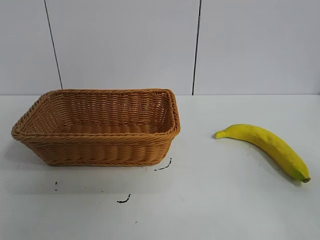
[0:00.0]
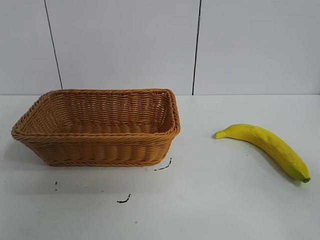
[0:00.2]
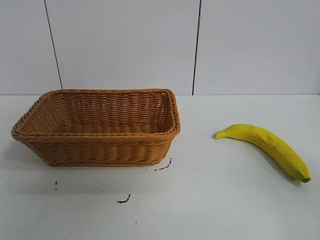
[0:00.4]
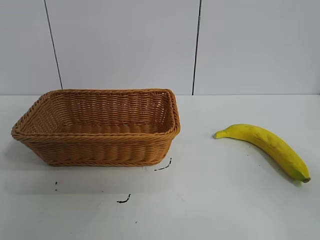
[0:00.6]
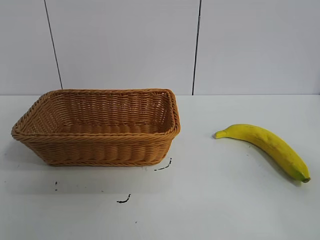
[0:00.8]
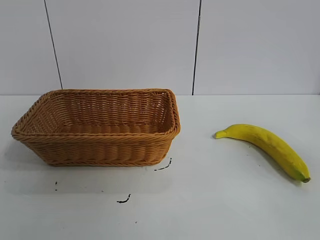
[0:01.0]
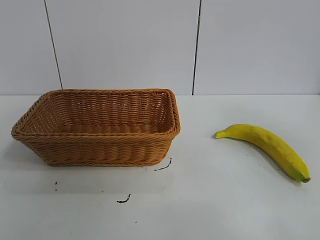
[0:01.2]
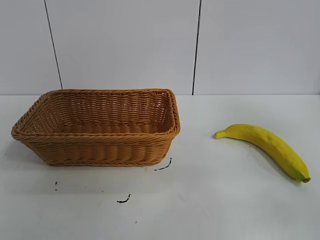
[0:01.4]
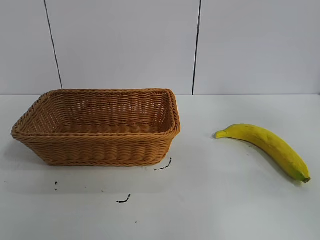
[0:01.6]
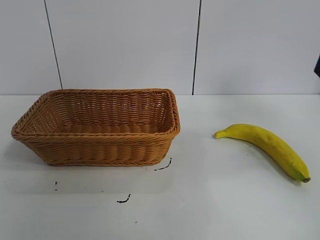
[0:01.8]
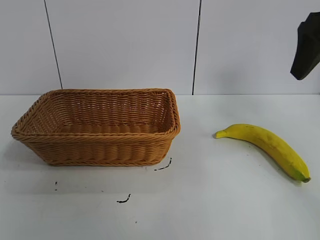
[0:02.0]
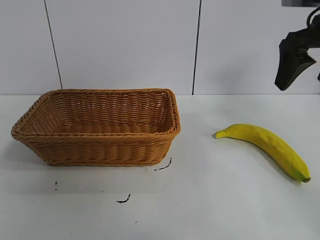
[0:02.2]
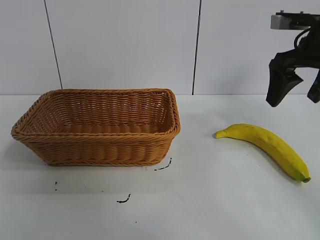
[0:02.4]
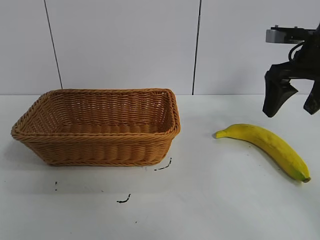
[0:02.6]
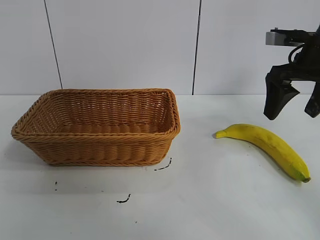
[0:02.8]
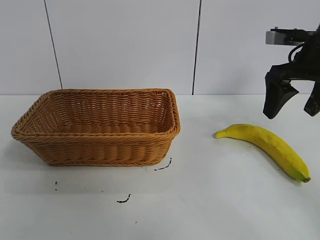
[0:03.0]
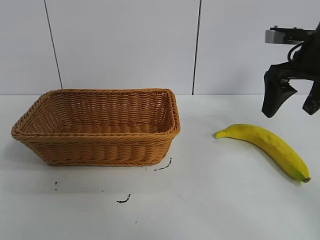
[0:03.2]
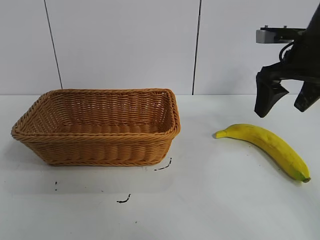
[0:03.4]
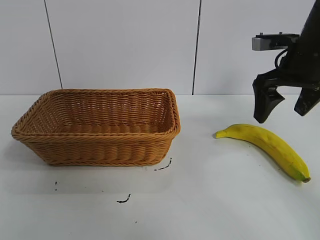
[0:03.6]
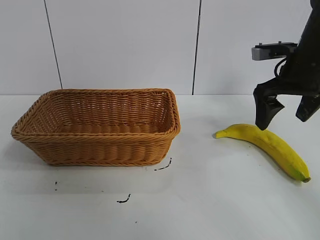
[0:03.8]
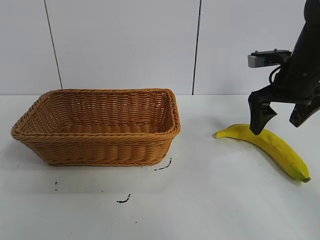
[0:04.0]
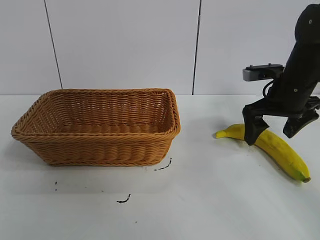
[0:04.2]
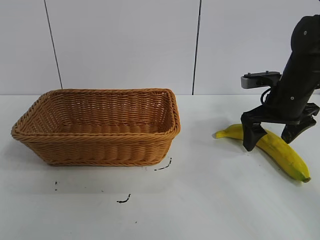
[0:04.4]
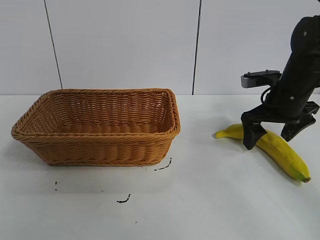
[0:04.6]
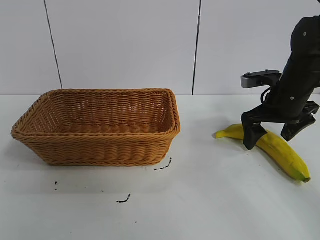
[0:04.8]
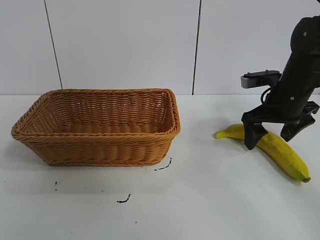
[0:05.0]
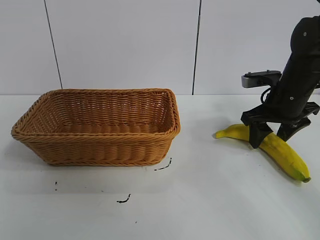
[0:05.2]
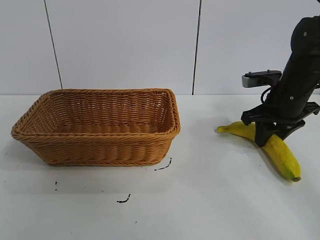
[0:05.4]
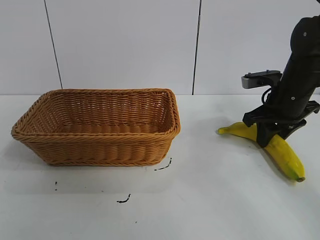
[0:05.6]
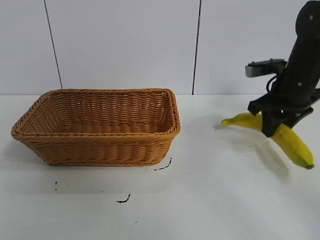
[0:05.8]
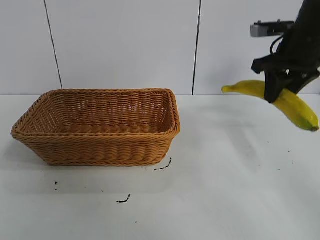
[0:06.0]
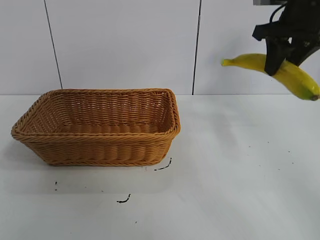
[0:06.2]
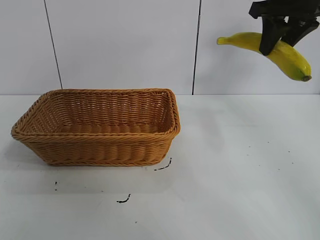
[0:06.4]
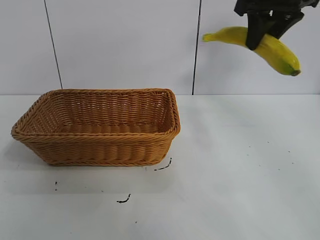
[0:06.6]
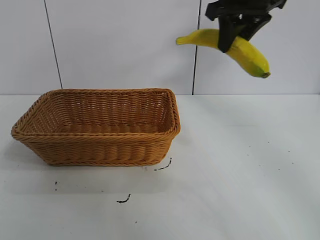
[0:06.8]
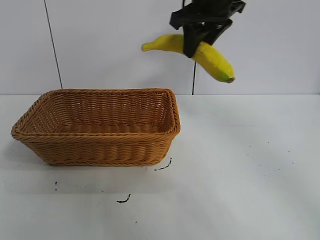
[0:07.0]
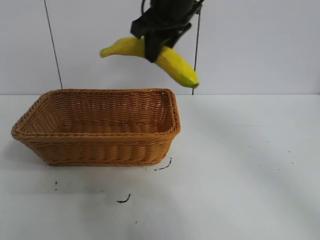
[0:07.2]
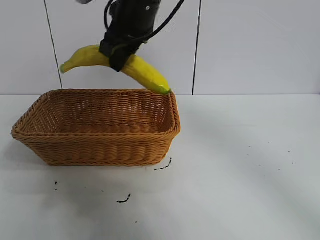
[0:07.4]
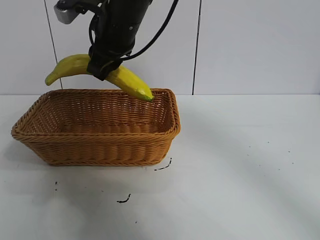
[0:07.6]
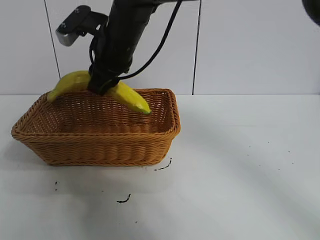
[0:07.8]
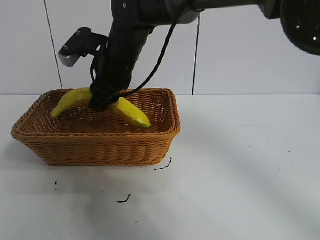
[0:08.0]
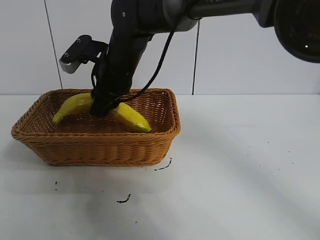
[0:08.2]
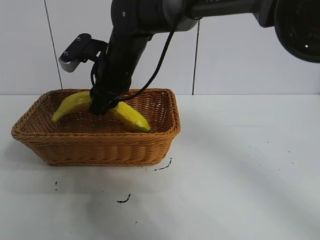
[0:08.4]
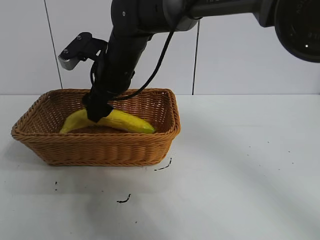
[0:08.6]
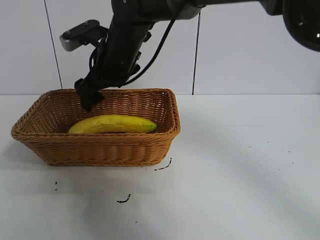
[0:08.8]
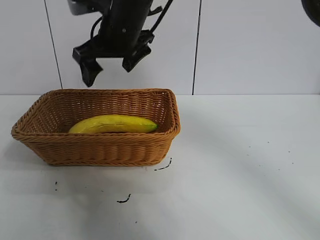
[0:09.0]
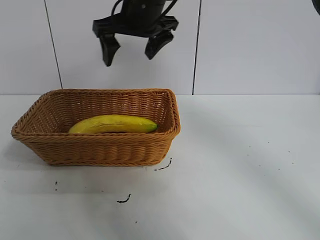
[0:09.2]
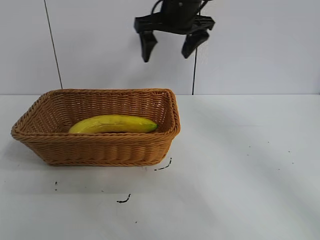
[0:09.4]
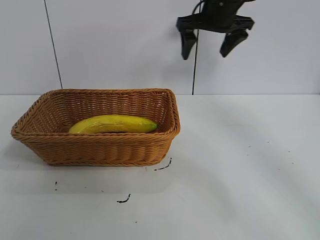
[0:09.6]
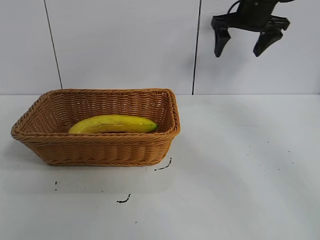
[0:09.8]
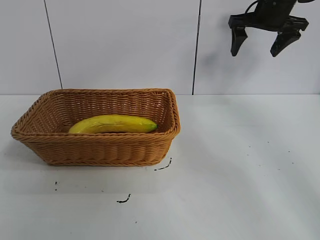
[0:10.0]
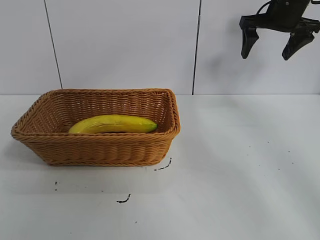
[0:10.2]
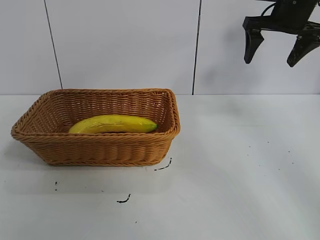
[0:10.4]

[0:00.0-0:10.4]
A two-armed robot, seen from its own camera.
Task of the whole recording: pick up the banana and put it into the basket.
Step, 0:00.8 to 0:05.4: Grasp the banana with right gripper.
Step, 0:05.6 to 0:08.8: Place the banana in the basket with right gripper.

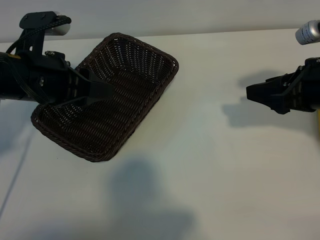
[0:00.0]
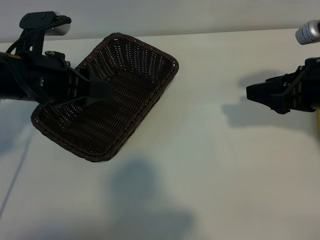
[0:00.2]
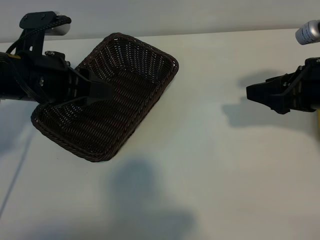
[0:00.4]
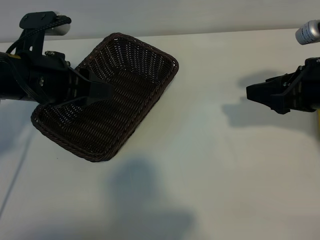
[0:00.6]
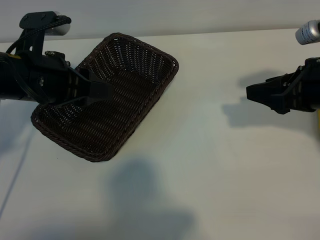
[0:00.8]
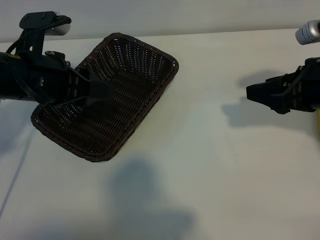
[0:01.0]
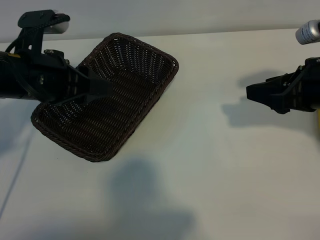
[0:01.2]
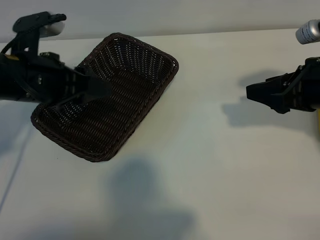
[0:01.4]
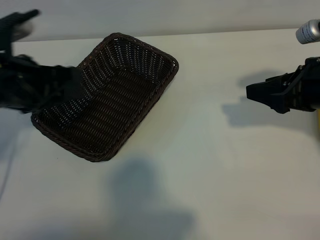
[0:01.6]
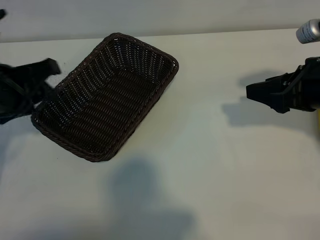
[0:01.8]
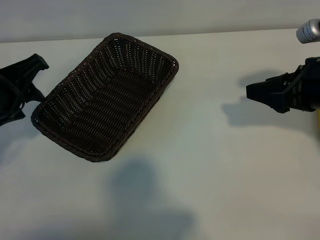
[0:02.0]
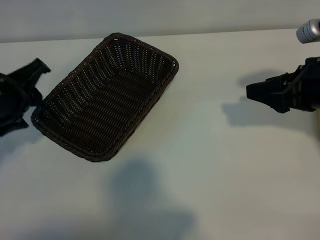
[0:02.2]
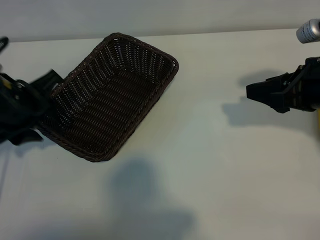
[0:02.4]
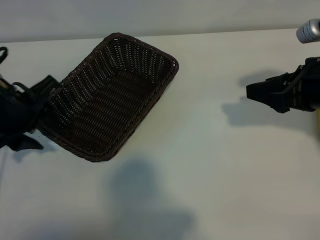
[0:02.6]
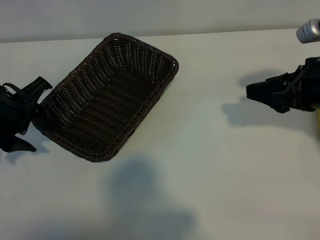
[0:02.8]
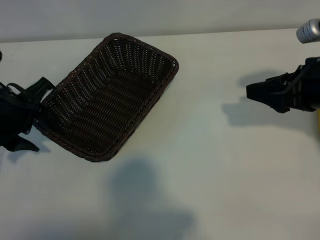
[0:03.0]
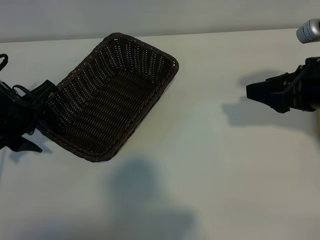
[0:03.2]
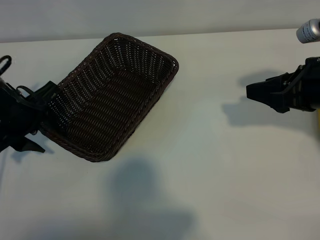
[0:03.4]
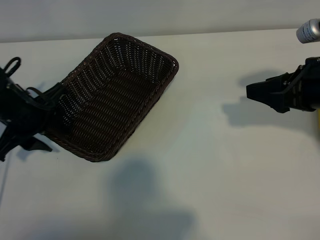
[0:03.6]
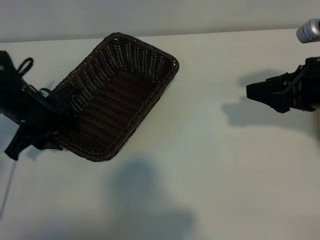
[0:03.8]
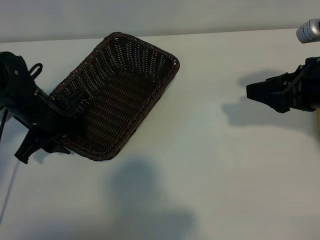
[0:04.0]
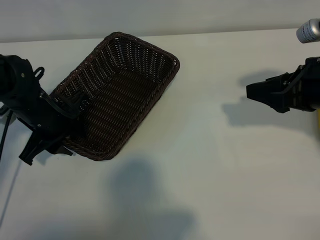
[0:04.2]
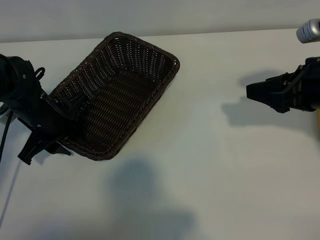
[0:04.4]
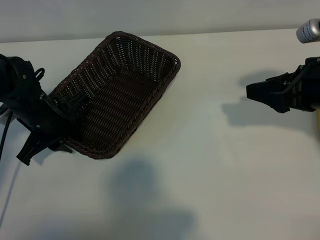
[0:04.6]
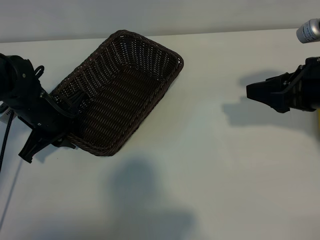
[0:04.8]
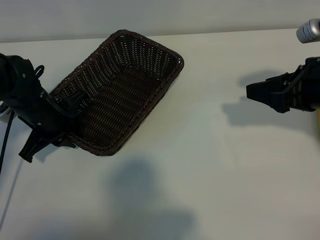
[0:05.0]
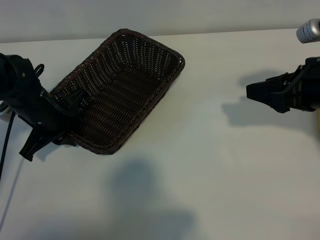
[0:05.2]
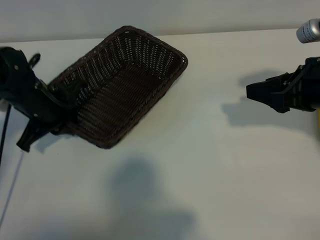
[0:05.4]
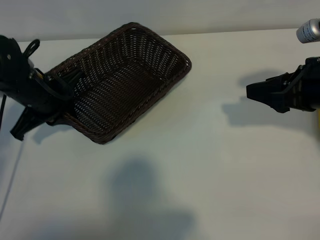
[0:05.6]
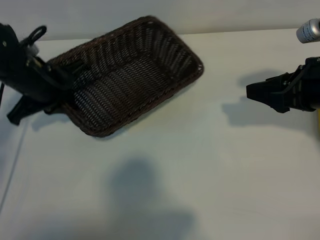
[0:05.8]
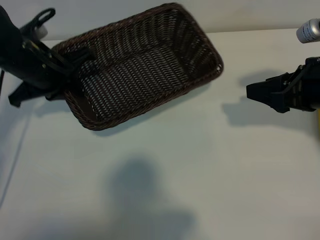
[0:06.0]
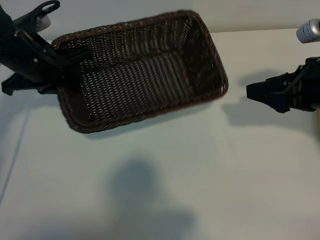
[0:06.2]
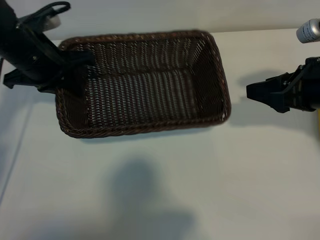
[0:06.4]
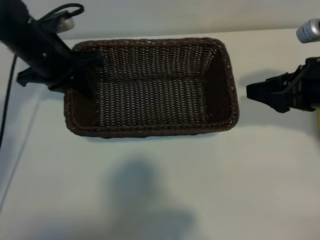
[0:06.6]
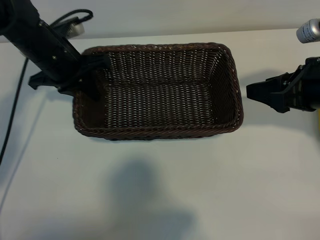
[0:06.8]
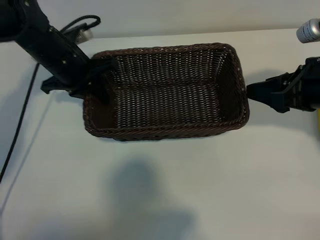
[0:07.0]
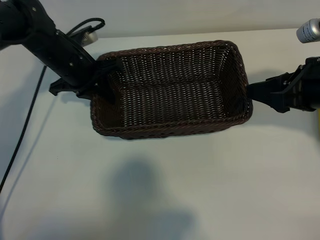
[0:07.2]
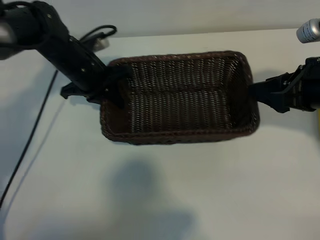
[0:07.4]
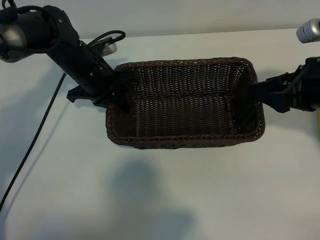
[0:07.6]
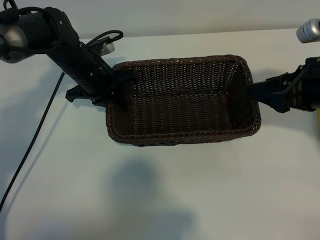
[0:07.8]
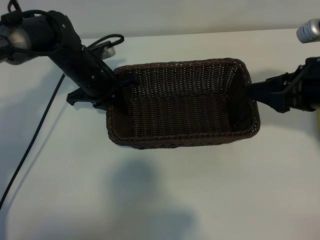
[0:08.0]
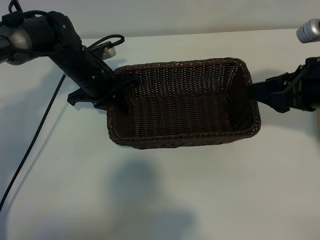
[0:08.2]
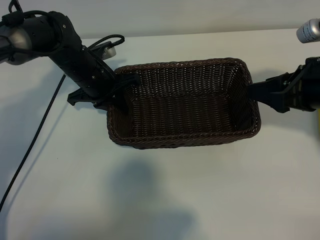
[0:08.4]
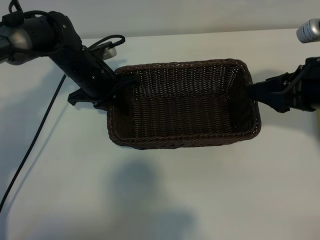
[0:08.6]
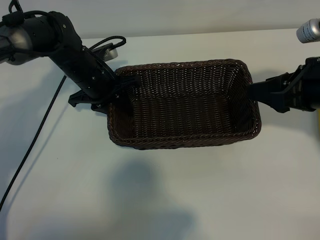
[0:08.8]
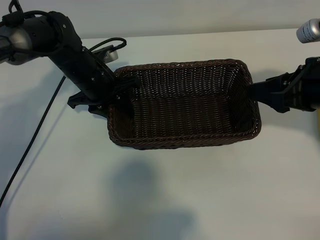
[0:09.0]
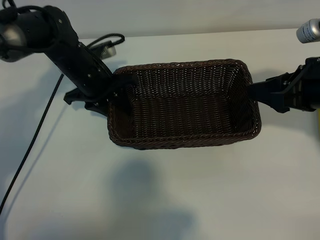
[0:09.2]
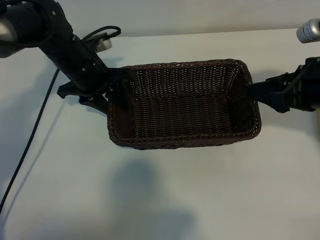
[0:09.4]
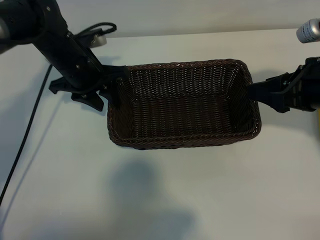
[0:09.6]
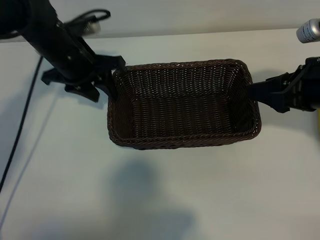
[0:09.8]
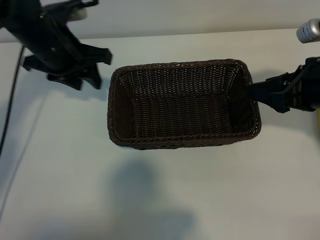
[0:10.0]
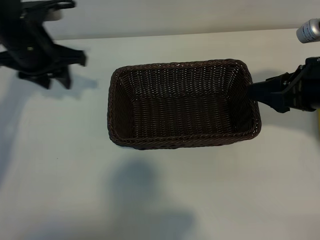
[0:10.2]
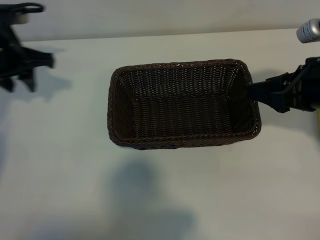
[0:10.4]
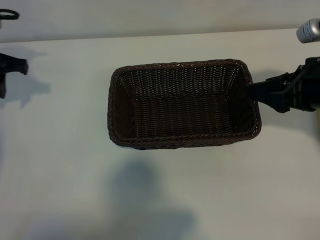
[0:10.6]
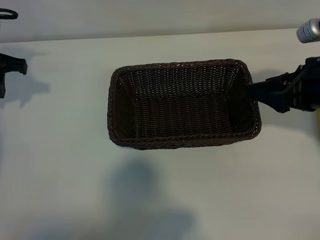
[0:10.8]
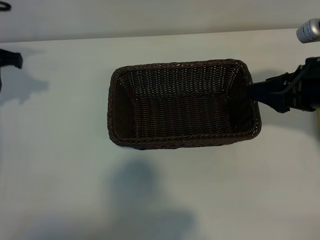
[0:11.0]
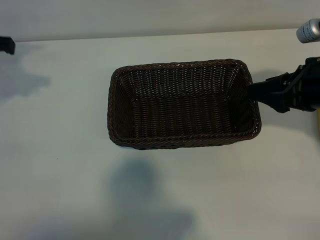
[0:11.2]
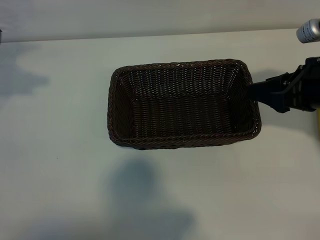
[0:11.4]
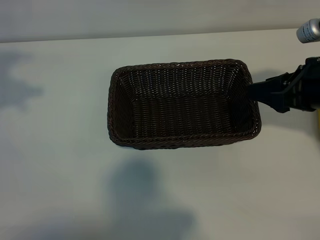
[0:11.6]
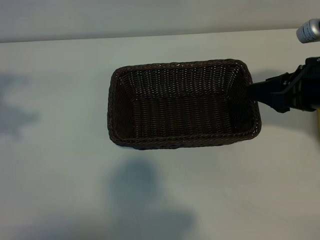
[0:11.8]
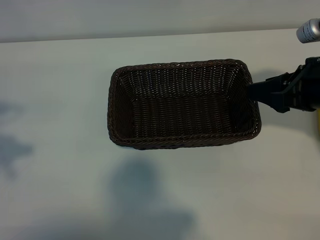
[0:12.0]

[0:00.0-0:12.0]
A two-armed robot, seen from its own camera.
Task of the whole recording: pick up the banana and put it into the basket.
Step, 0:01.2 to 0:05.0: Grasp the basket with the left gripper.
Step, 0:05.2 to 0:09.4: Place the basket in the center of the table with the left gripper.
